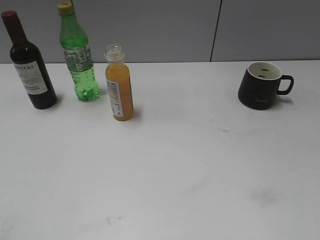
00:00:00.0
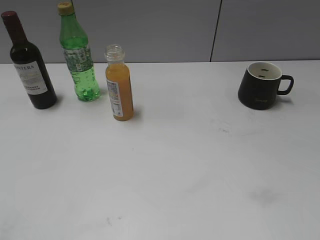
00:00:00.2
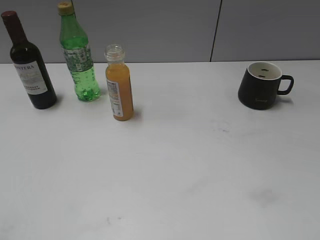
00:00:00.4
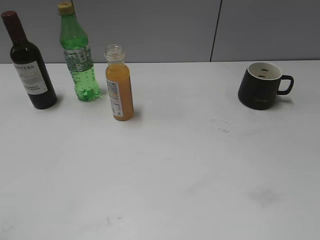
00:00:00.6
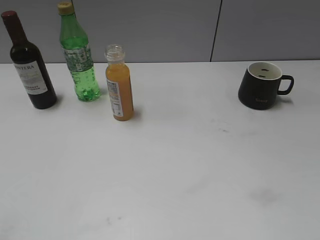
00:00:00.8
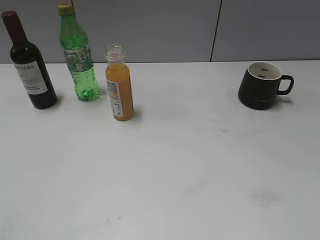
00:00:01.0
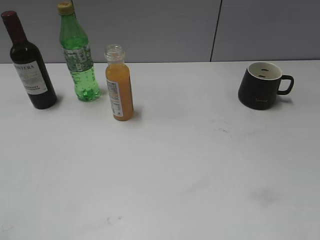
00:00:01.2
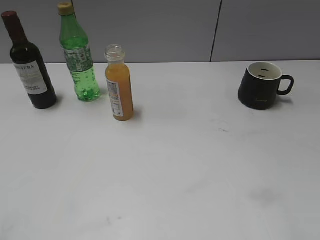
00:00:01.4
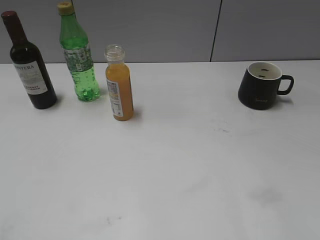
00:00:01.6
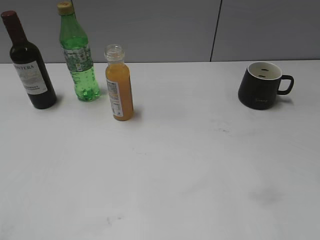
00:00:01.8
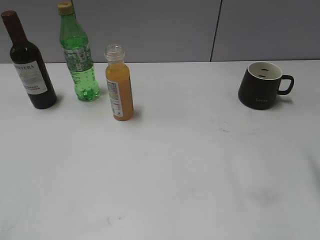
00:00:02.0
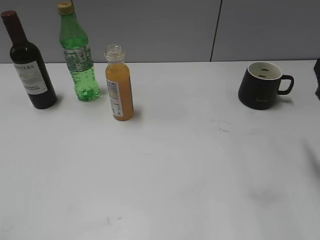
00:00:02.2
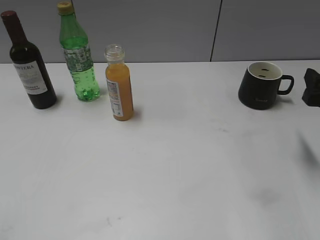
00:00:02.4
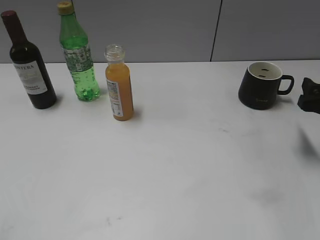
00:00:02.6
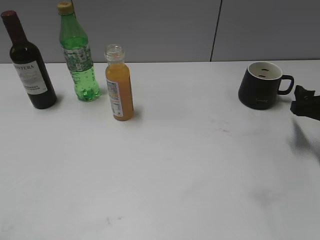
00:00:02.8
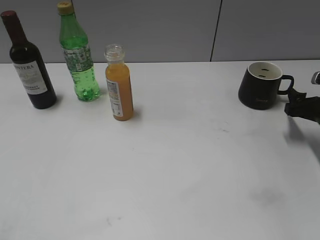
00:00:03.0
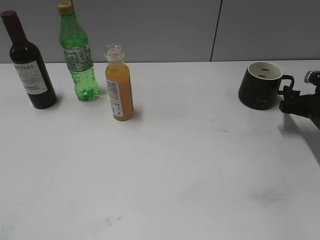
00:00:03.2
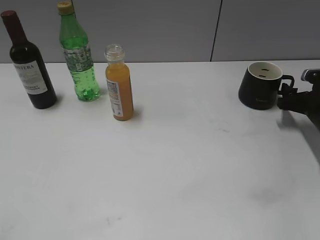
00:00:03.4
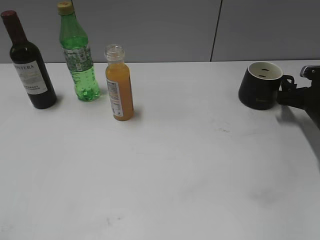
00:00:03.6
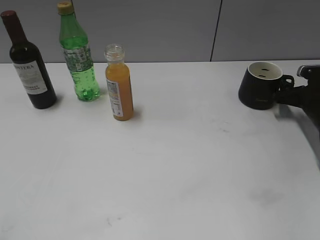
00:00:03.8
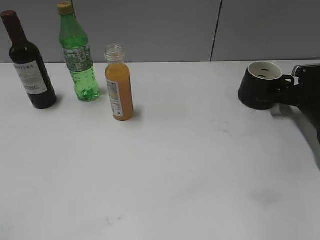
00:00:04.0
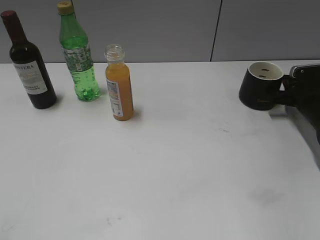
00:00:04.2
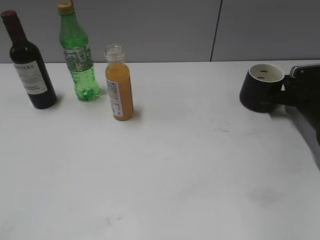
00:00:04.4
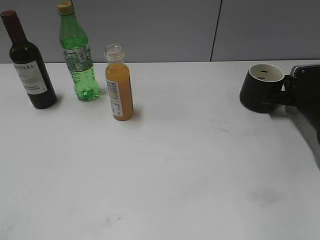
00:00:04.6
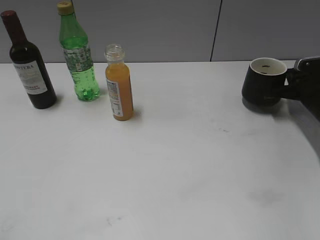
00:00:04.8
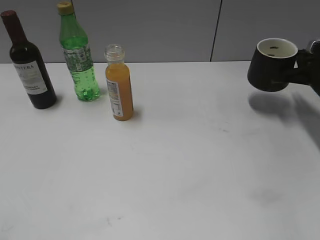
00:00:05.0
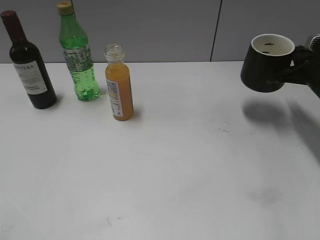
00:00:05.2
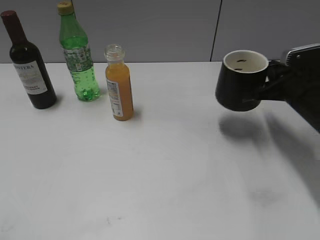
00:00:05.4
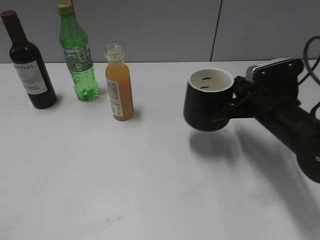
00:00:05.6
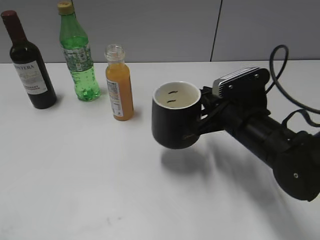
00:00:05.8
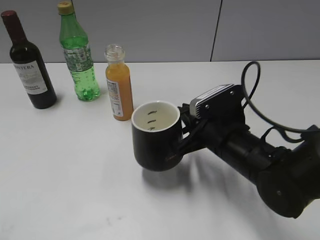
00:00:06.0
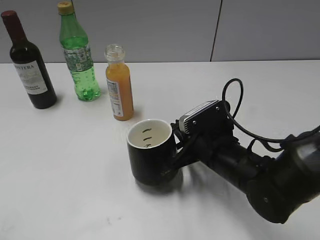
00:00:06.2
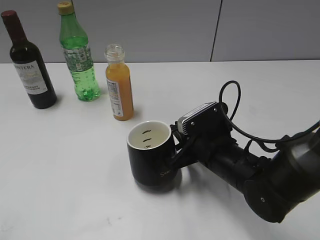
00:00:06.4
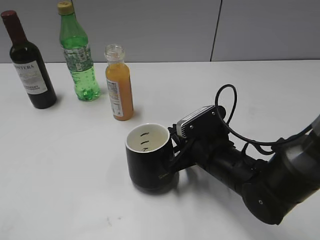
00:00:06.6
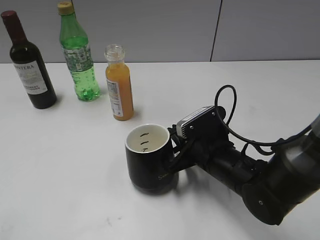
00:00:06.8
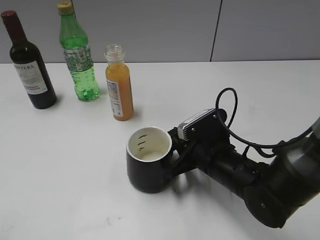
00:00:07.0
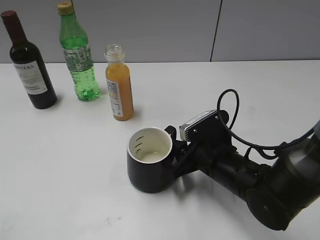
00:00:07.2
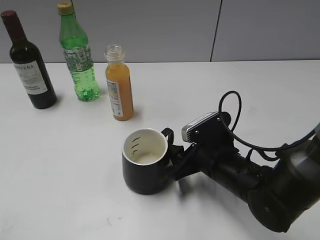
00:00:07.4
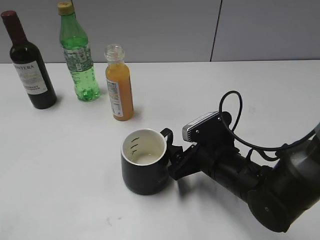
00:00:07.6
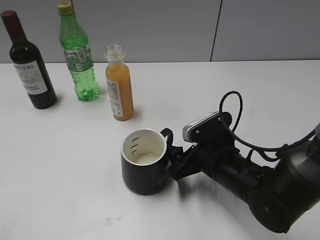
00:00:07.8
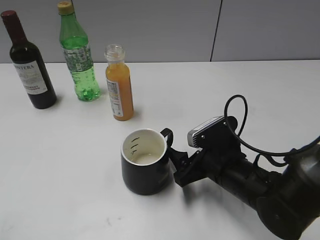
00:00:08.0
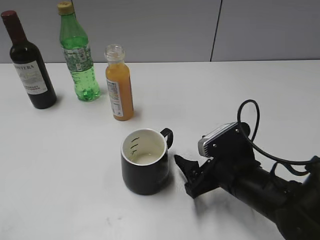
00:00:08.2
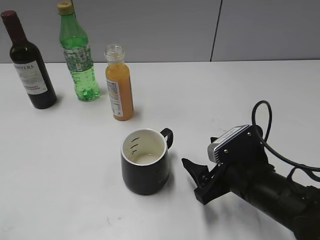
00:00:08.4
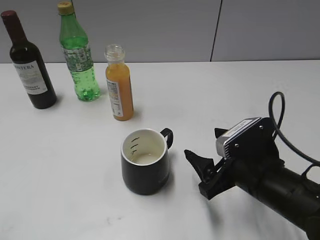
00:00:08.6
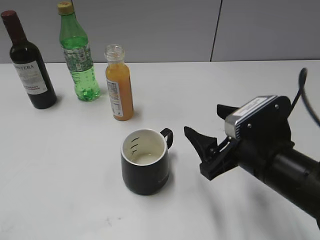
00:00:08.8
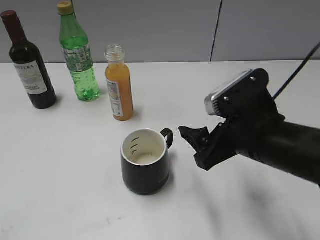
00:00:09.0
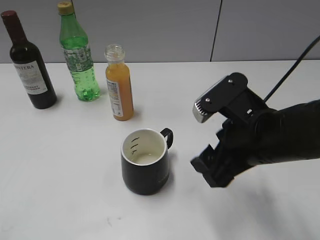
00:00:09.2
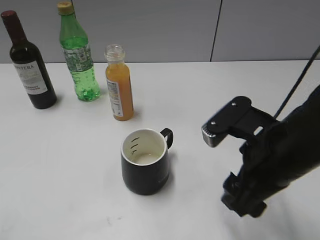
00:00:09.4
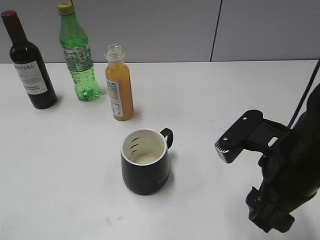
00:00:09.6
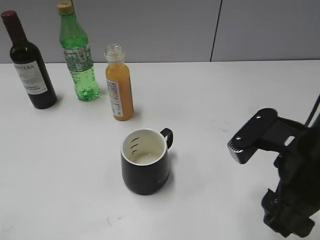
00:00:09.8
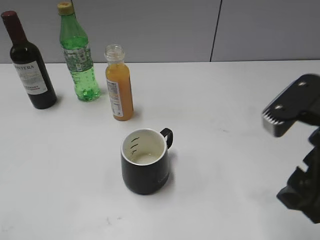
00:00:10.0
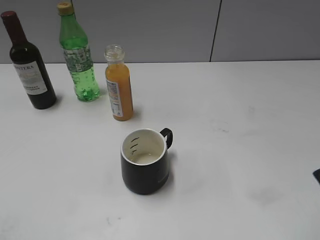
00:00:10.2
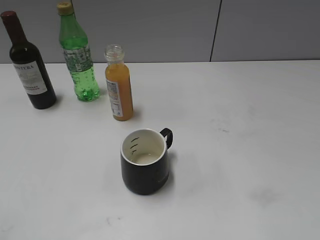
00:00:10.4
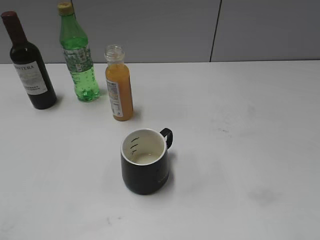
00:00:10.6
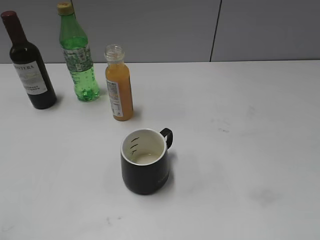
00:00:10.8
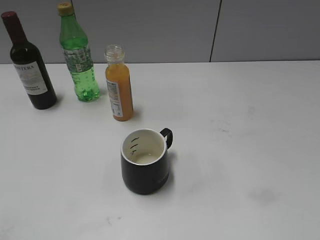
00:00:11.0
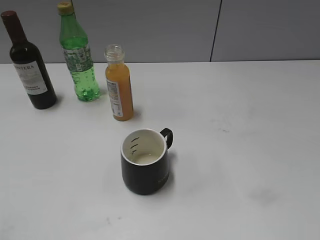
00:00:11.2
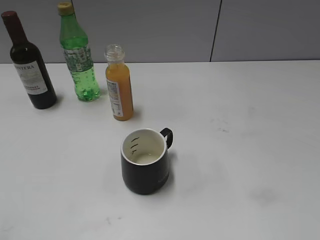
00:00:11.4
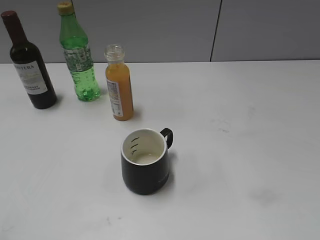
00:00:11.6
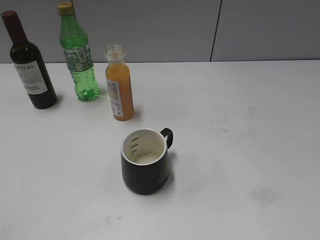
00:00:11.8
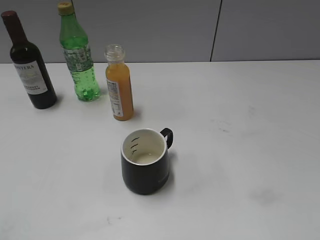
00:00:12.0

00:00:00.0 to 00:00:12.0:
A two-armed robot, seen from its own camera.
Step, 00:00:02.2 to 00:00:04.6: Grasp the black cup with right gripper.
Step, 00:00:04.8 to 00:00:07.2: Place the black cup in the center of view with right gripper.
00:00:01.6 to 00:00:03.0: The right gripper heads forward and downward, covering approximately 30 cm.
00:00:03.0 to 00:00:04.4: The right gripper shifts some 10 cm forward, and closes.
00:00:04.4 to 00:00:06.0: The right gripper goes some 25 cm to the left and backward.
00:00:06.0 to 00:00:07.6: The right gripper heads downward, covering roughly 5 cm, and opens its fingers.
00:00:07.6 to 00:00:09.0: The right gripper is displaced upward by some 10 cm.
00:00:09.0 to 00:00:10.4: The right gripper heads upward, backward and to the right, covering about 20 cm.

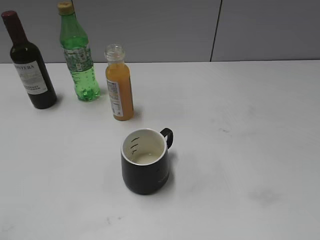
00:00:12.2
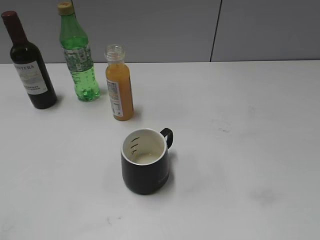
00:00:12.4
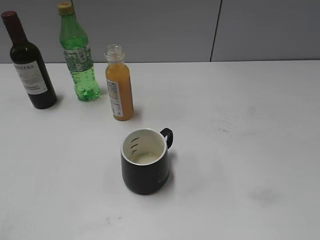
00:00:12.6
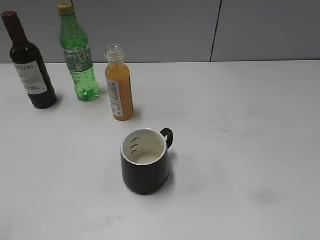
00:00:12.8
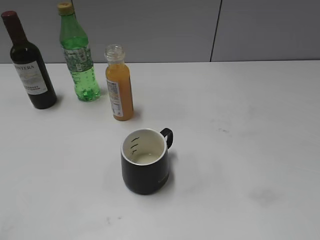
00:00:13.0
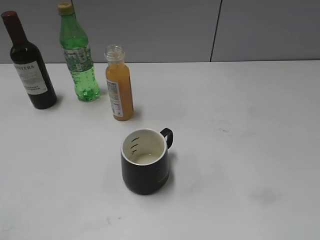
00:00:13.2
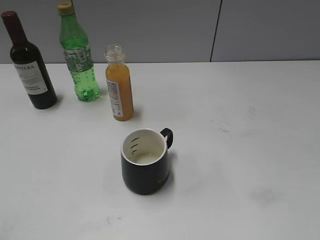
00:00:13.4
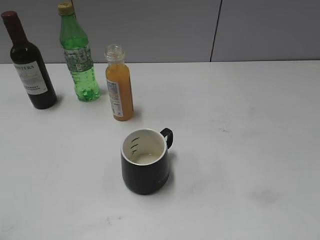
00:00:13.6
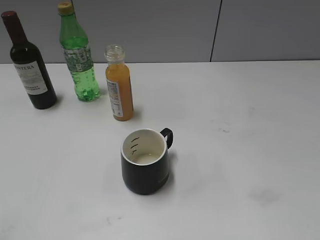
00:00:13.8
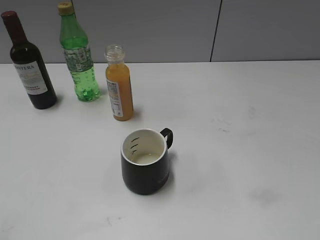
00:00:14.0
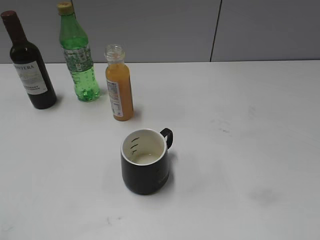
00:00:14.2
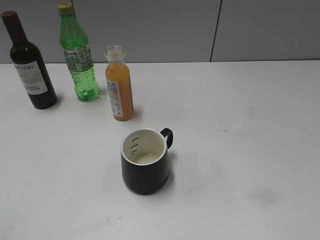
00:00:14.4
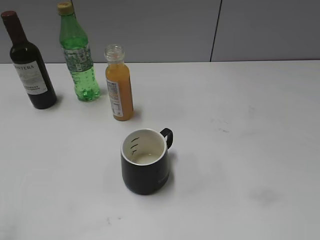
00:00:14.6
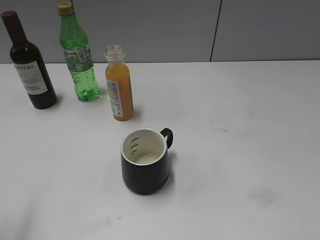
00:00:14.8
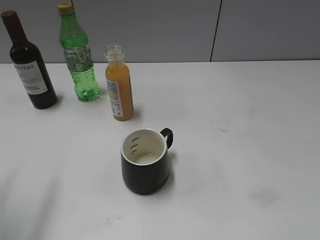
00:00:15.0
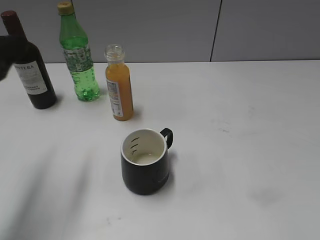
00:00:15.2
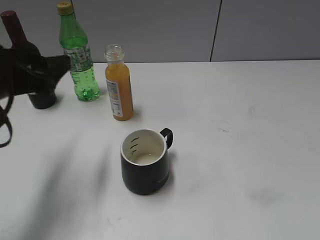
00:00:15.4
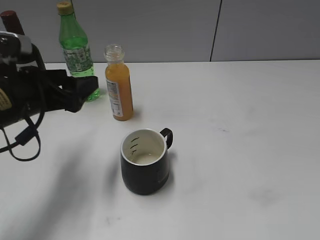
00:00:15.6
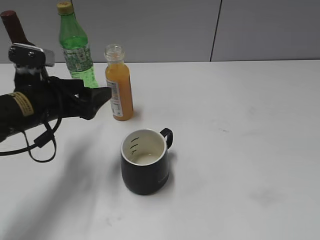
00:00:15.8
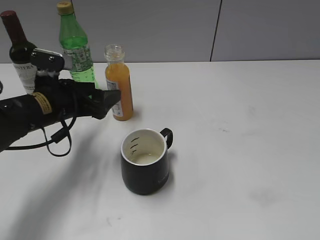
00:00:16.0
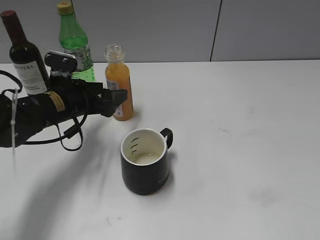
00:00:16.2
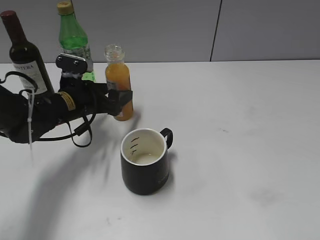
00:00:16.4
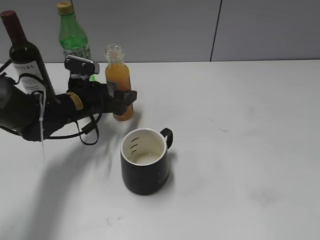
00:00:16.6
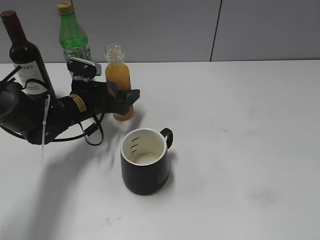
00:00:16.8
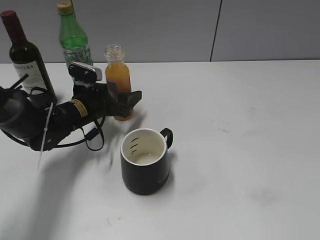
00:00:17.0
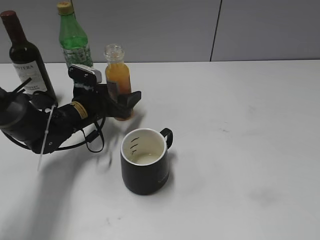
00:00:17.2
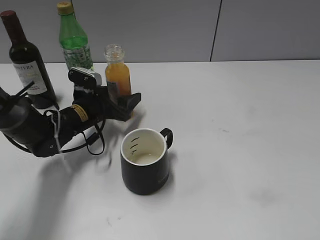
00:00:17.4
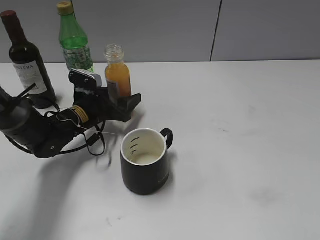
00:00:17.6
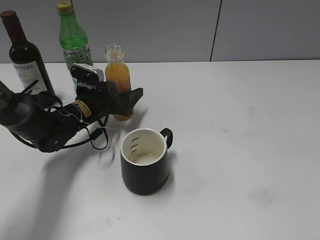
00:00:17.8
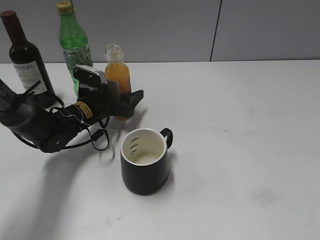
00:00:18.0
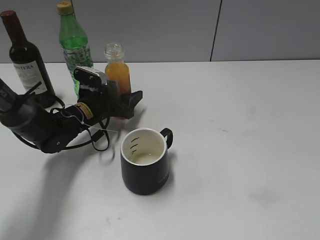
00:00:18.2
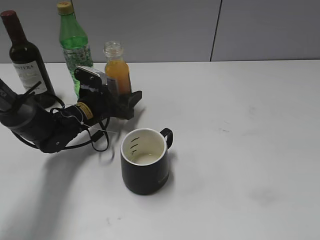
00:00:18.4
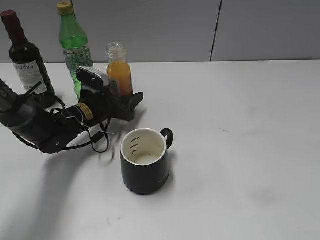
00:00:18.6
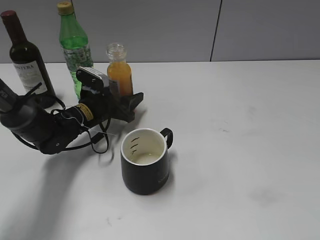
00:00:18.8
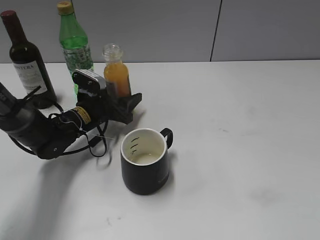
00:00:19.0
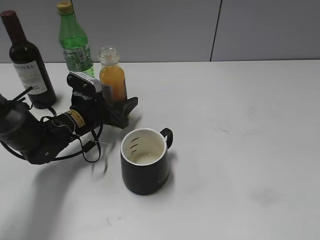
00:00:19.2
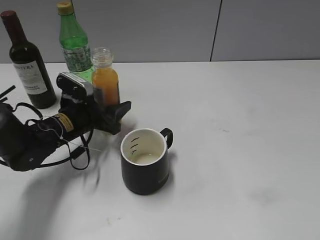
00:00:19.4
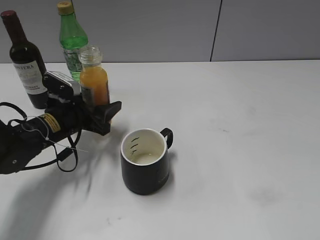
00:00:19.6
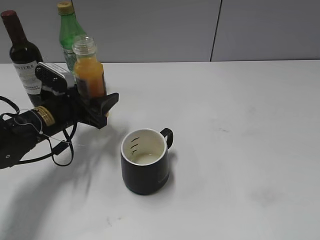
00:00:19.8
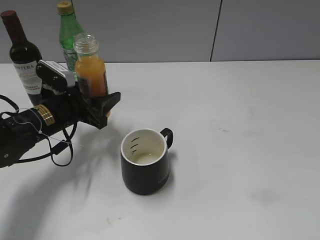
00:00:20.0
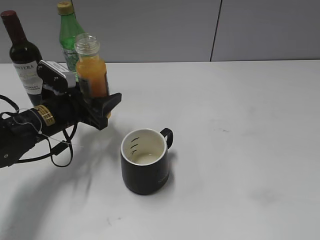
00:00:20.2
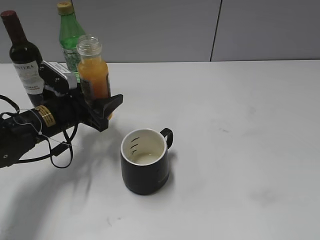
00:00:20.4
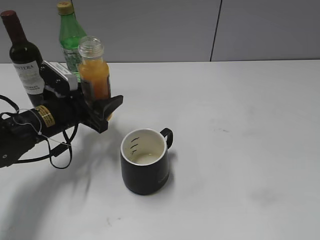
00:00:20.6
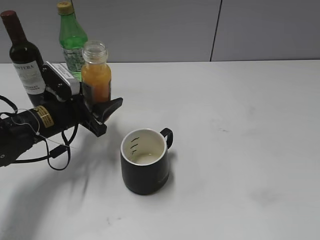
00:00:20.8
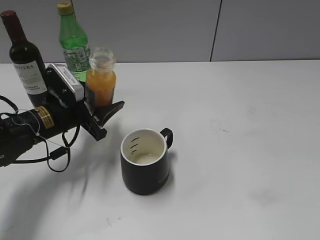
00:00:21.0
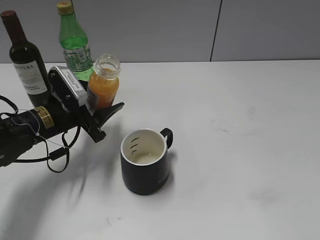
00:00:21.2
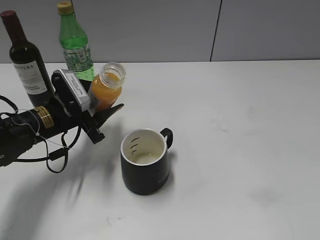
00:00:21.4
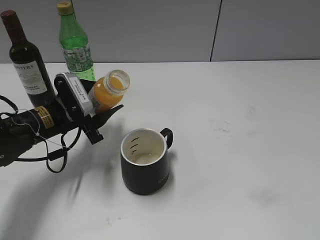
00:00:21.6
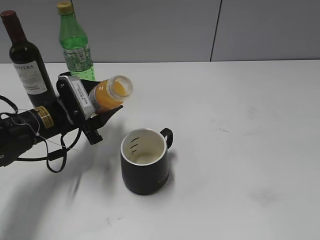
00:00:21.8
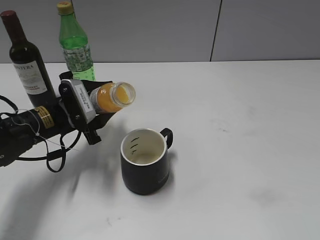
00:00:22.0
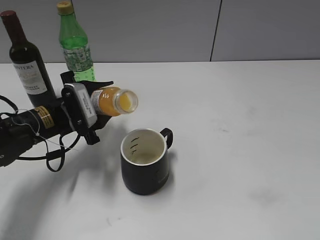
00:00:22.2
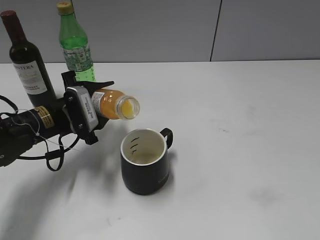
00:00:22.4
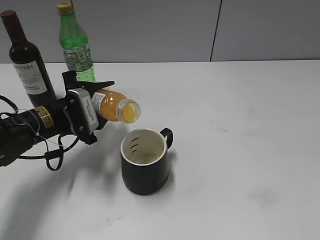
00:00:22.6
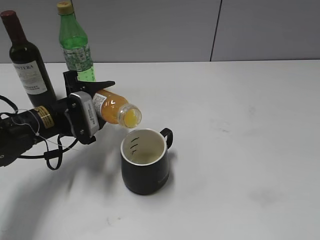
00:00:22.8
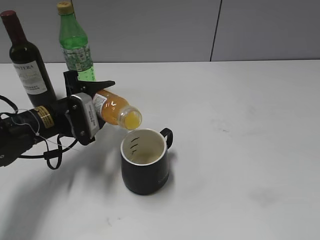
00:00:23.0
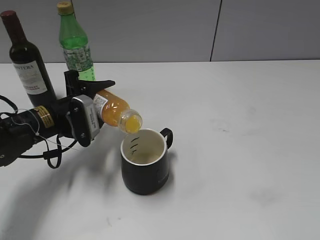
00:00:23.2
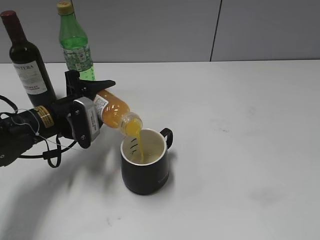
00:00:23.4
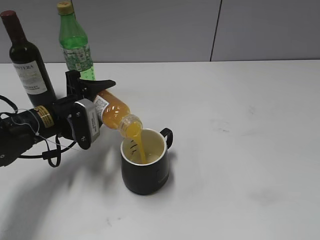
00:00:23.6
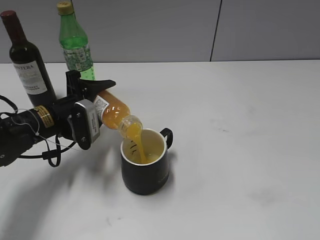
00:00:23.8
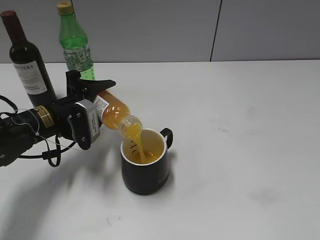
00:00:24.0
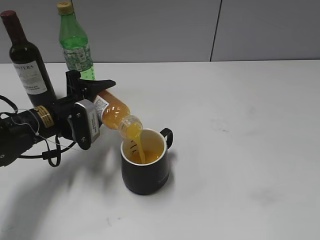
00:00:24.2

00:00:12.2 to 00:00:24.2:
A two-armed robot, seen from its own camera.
Step, 00:00:12.2 to 00:00:18.6: Grasp the bottle with orange juice with left gripper.
00:00:13.8 to 00:00:15.2: The left gripper is displaced forward by approximately 20 cm.
00:00:15.2 to 00:00:16.6: The left gripper travels downward, forward and to the right by roughly 30 cm.
00:00:16.6 to 00:00:18.2: The left gripper shifts by approximately 5 cm.
00:00:18.2 to 00:00:19.8: The left gripper heads backward, covering some 5 cm.
00:00:22.6 to 00:00:24.2: There are only small adjustments of the grippers.
